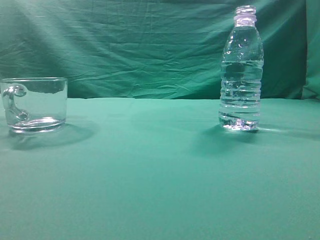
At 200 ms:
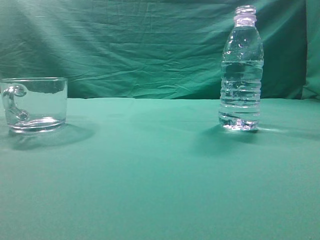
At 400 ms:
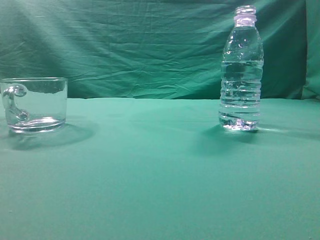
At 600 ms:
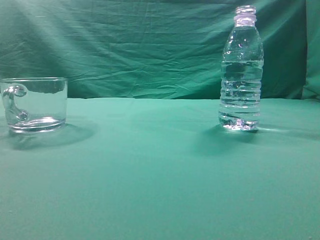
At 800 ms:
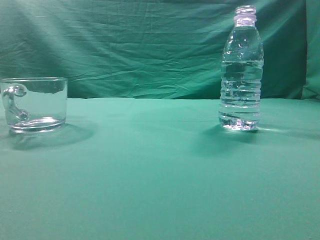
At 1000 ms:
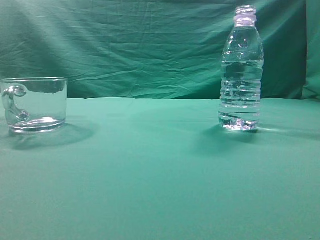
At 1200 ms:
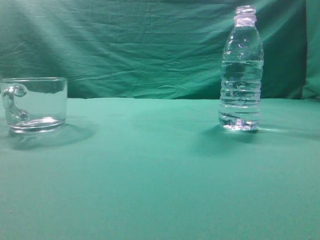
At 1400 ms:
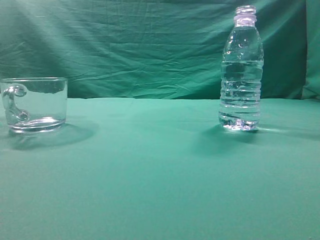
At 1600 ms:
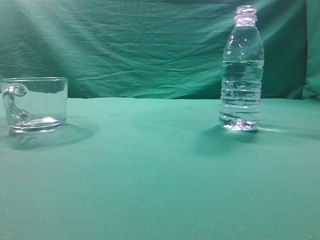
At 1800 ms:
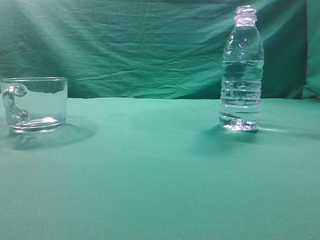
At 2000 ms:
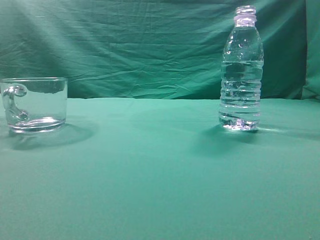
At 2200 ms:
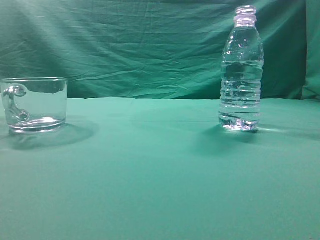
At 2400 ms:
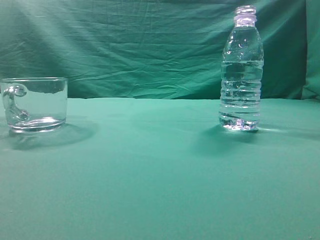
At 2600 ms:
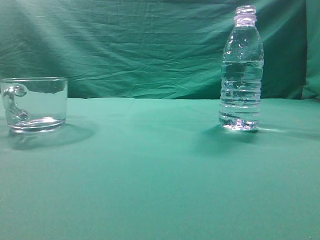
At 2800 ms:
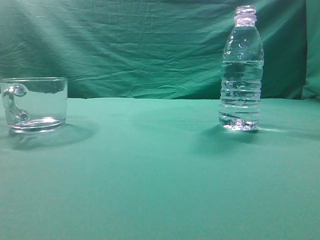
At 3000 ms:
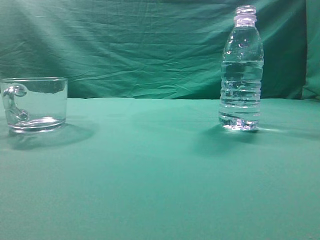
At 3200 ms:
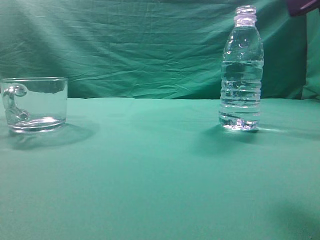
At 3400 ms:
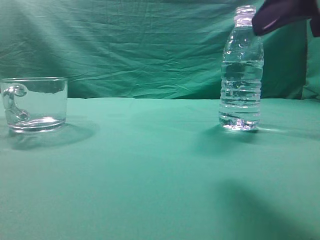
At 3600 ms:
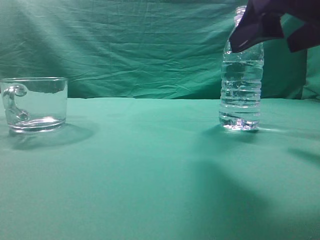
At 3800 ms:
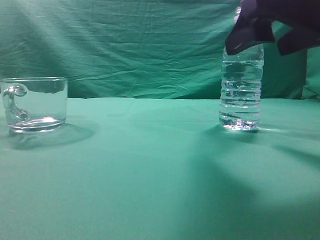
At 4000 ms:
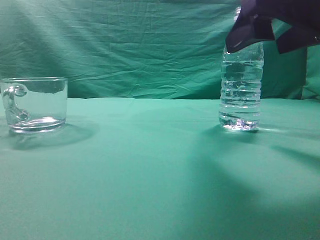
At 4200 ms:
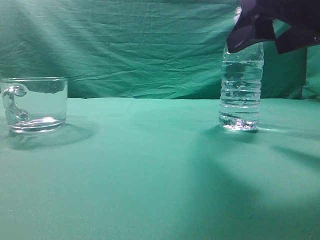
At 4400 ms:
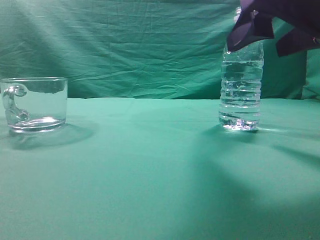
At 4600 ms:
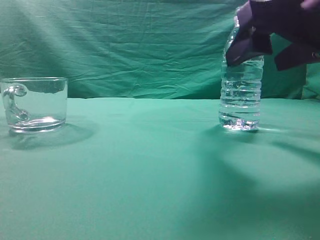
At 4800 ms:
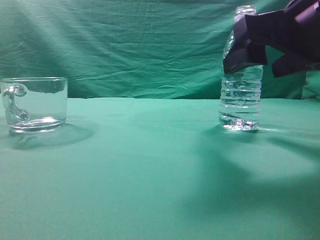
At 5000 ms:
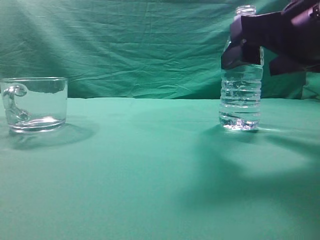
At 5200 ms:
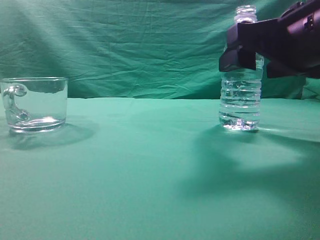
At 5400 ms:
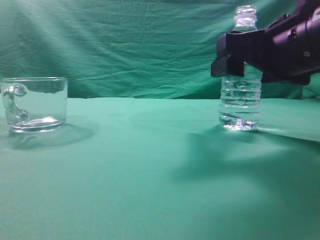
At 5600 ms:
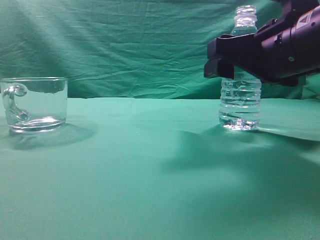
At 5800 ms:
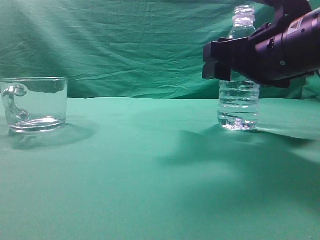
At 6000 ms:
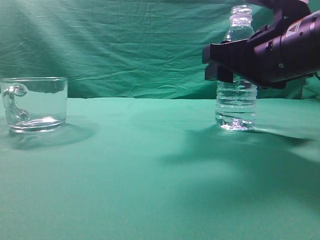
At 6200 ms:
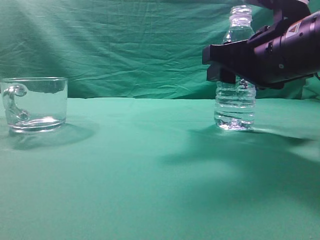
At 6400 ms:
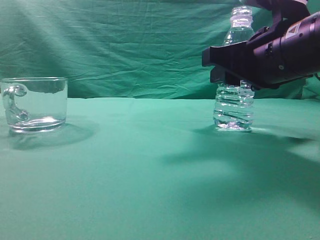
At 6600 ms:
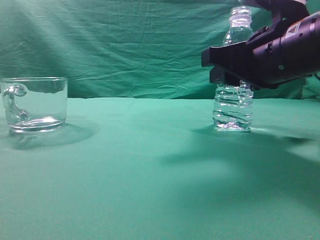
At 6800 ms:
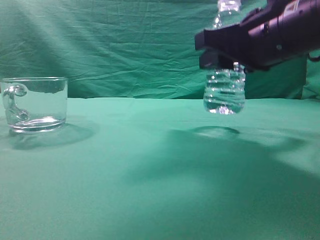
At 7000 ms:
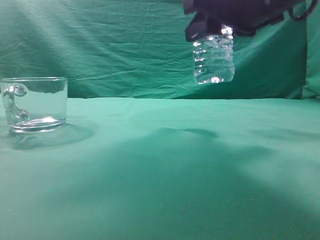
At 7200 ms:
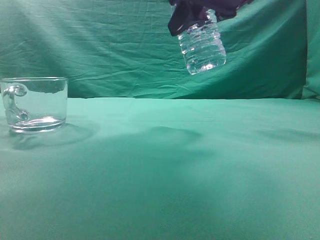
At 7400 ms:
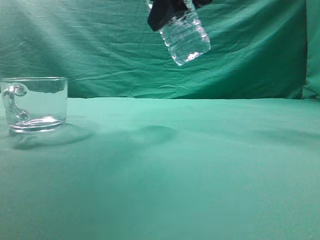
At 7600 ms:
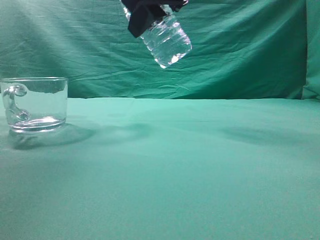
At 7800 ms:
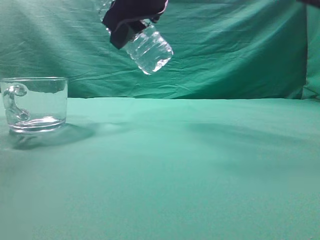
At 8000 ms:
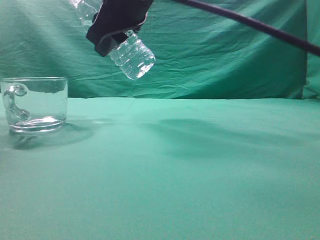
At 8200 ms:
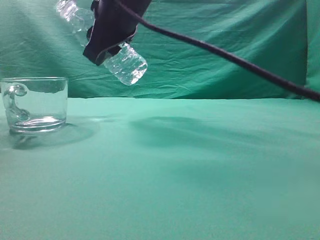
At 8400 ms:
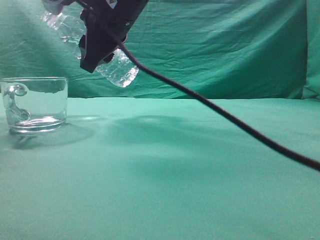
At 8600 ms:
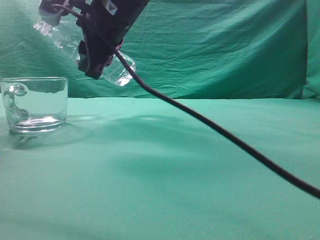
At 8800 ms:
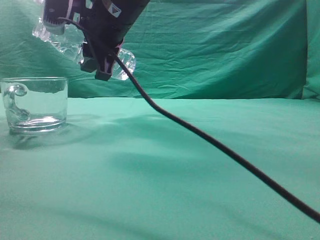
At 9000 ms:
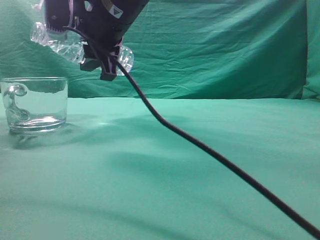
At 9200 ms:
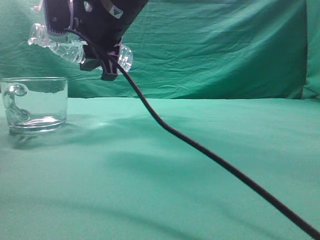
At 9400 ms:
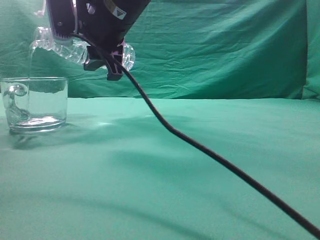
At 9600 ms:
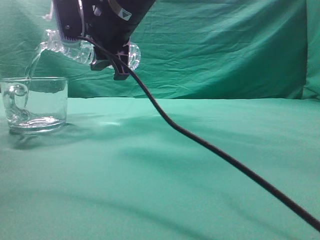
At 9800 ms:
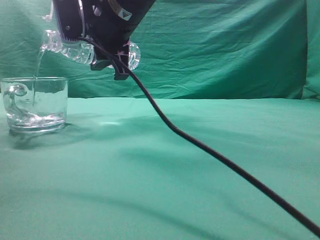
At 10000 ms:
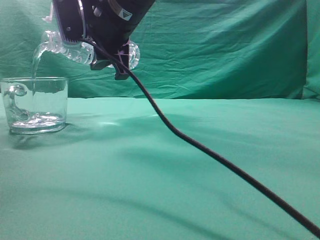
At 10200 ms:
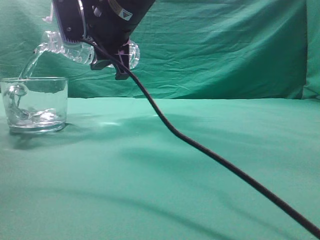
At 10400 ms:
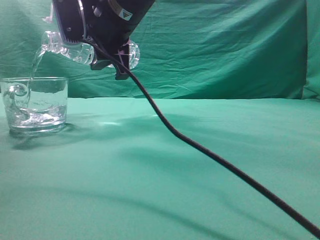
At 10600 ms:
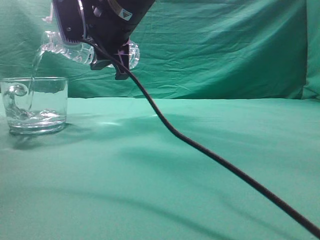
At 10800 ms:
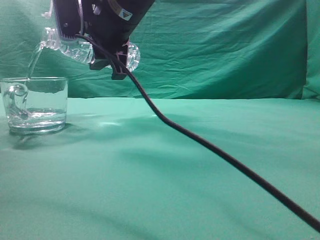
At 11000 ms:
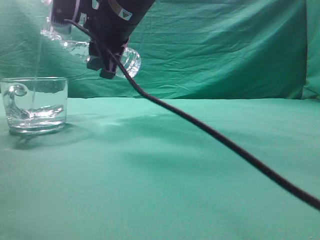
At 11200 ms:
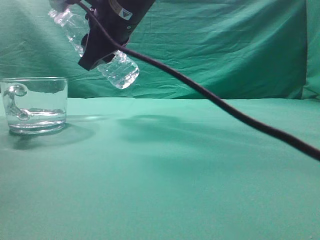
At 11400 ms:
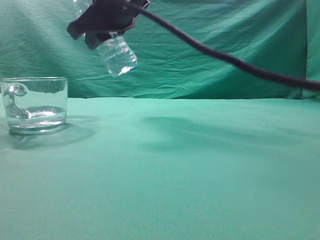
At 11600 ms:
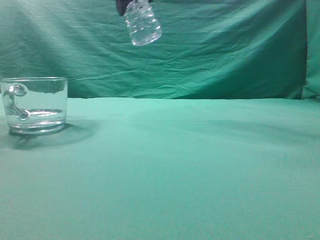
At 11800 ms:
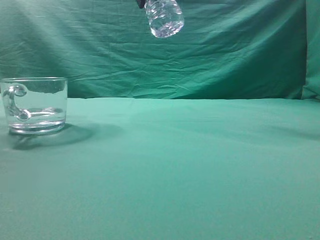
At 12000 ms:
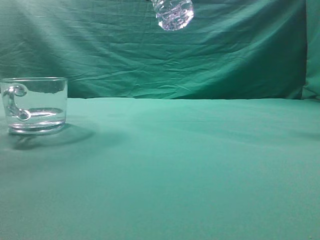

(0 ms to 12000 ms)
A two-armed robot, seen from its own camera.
Task of the whole recording: pick up the water bottle and pour the water in it into the glass.
Step, 0 ms - 6800 ms: Grasp the mineral water bottle.
Step, 7000 ms - 11200 ms: Pour water into the teacup.
3000 ms - 4400 ms: The right gripper heads forward and to the left, covering roughly 10 cm, and opens up.
4400 ms - 6000 ms: The right gripper shifts some 10 cm forward and downward.
6000 ms - 7600 ms: The right gripper shifts roughly 15 cm upward and to the left.
7600 ms - 9000 ms: The right gripper moves to the left and forward, some 10 cm.
9000 ms - 10400 ms: There are only small adjustments of the grippers.
10400 ms - 12000 ms: The right gripper shifts roughly 15 cm upward and to the right.

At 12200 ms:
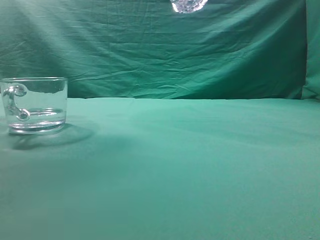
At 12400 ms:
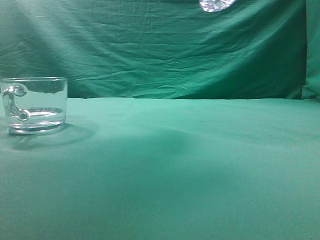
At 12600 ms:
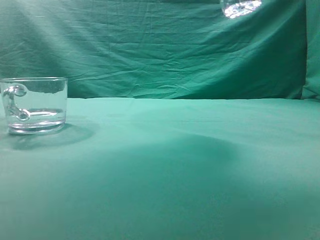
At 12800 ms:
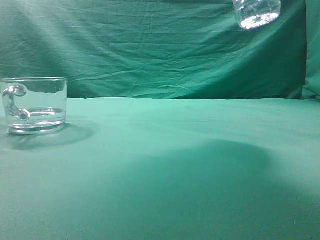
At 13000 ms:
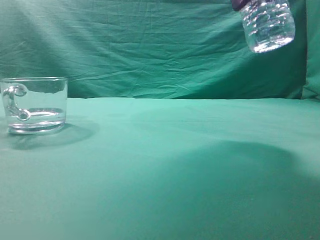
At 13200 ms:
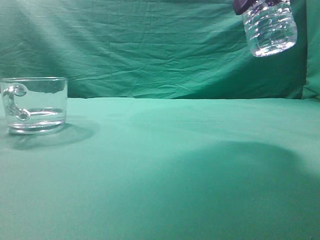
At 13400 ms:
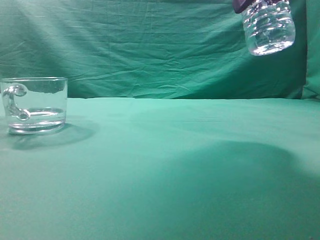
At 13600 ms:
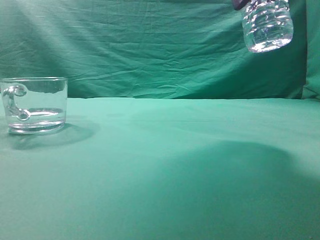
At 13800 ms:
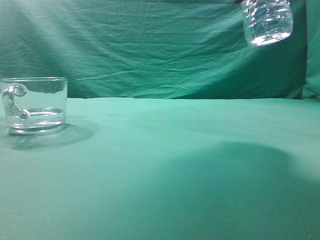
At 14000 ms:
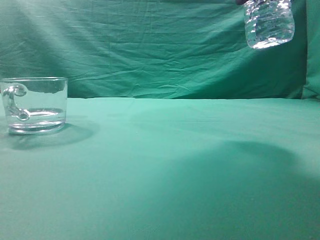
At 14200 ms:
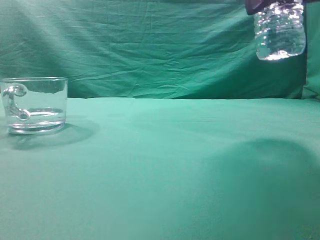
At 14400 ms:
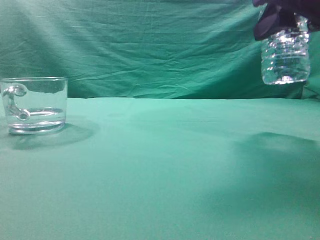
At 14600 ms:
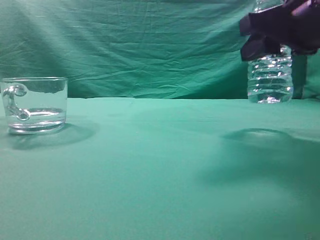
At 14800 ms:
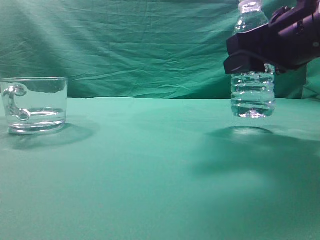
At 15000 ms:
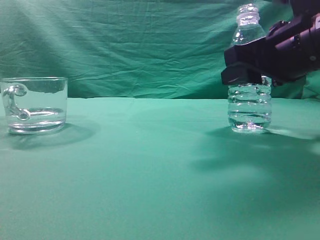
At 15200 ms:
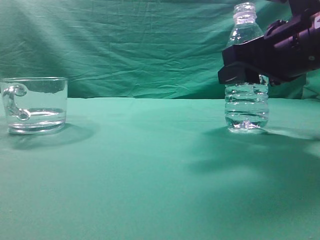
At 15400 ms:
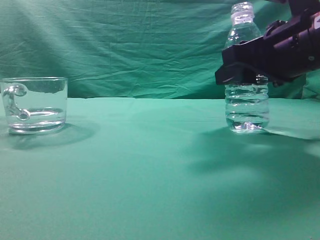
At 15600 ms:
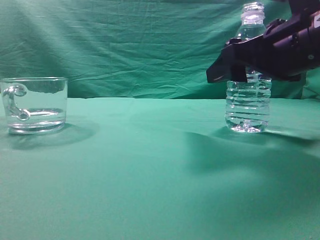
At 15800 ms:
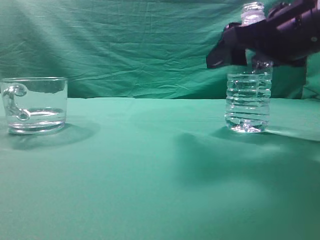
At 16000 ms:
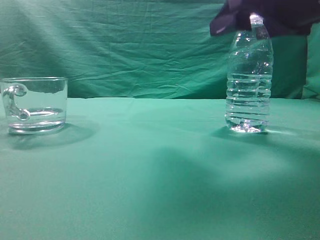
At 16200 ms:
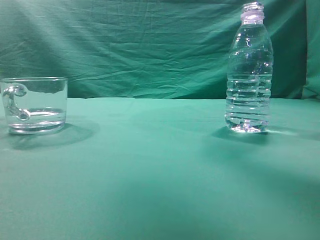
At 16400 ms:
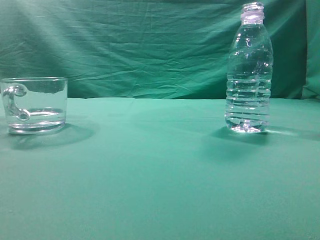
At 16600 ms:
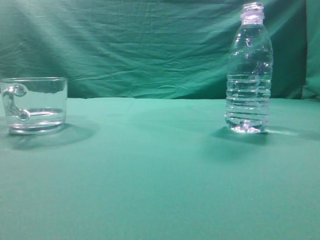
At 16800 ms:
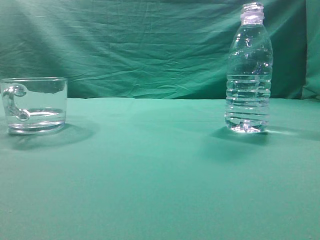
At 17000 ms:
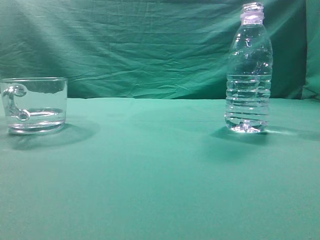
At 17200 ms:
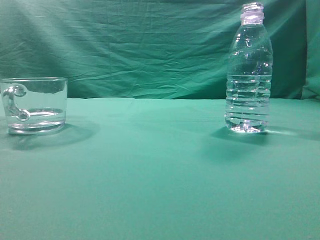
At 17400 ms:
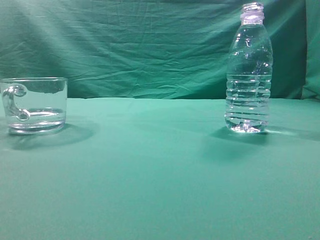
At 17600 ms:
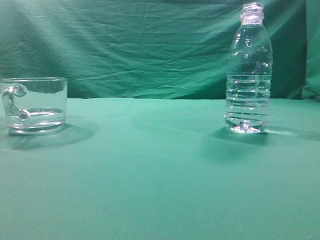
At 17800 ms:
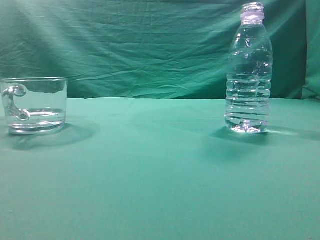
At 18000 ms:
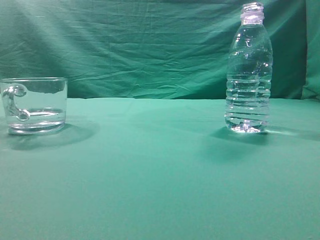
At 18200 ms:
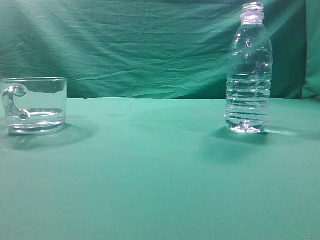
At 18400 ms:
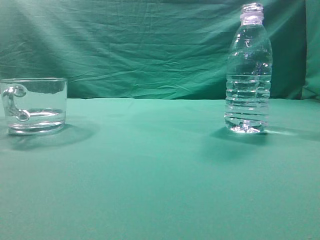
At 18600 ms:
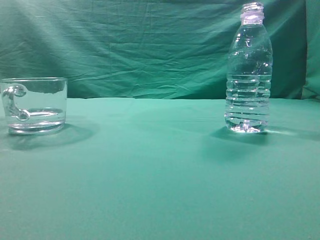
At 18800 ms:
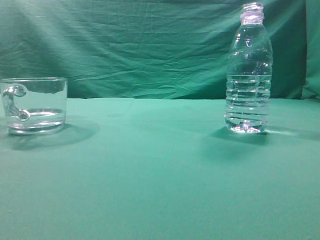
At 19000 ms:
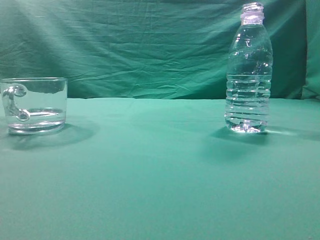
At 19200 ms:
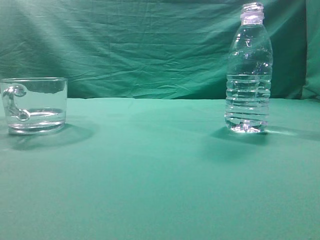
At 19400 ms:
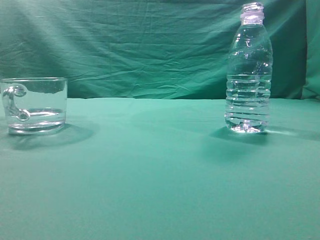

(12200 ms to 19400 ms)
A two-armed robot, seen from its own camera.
Task of the whole recording: pick up the water bottle and pour the water in it into the glass.
12200 ms - 13600 ms: The right gripper shifts some 15 cm to the right, downward and backward.
13600 ms - 15000 ms: The right gripper travels downward by about 15 cm.
15000 ms - 16600 ms: The right gripper travels upward and backward by approximately 20 cm, and closes its fingers.
